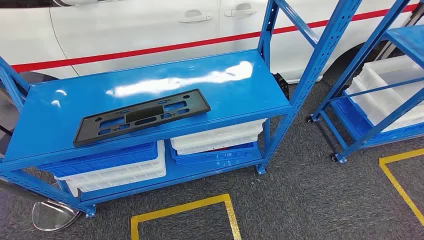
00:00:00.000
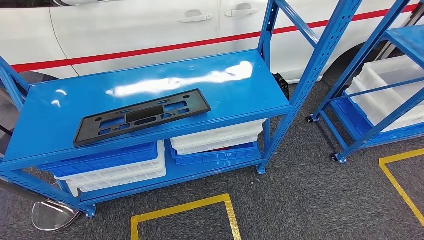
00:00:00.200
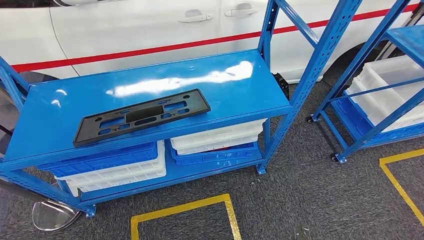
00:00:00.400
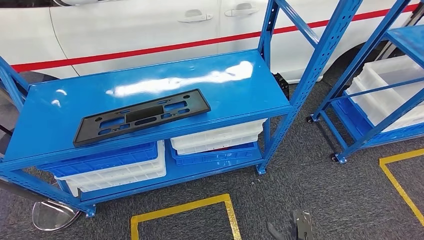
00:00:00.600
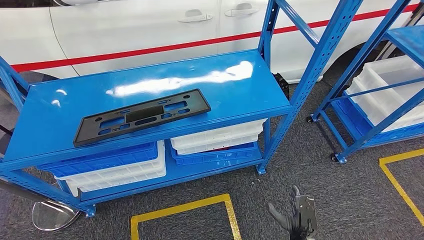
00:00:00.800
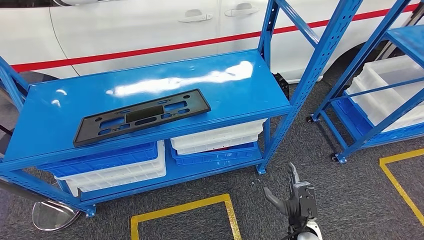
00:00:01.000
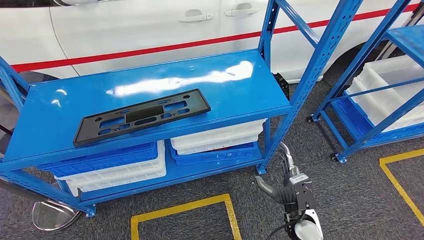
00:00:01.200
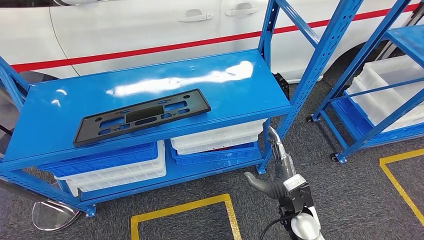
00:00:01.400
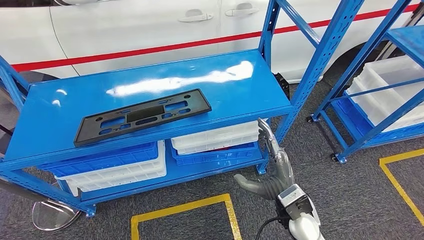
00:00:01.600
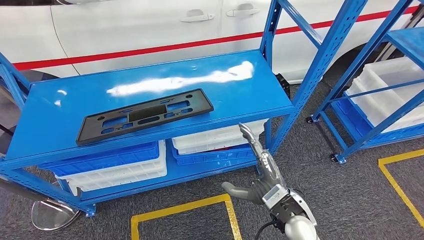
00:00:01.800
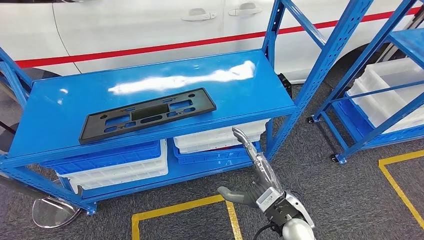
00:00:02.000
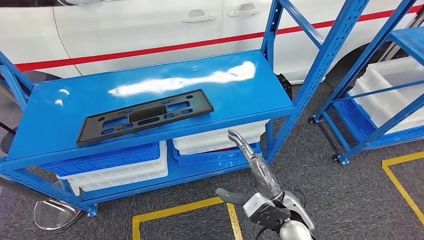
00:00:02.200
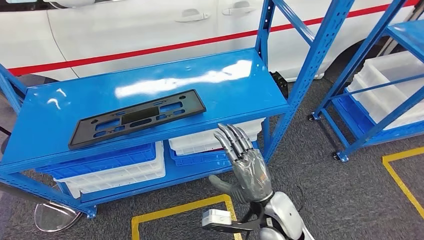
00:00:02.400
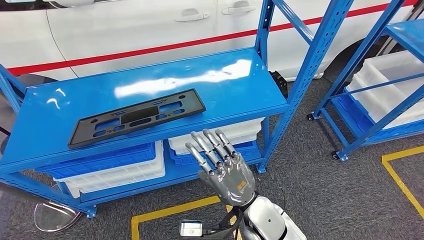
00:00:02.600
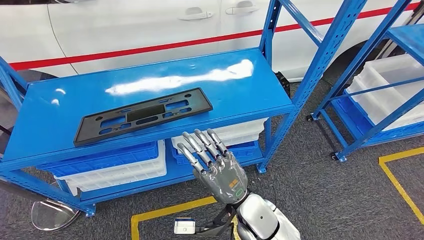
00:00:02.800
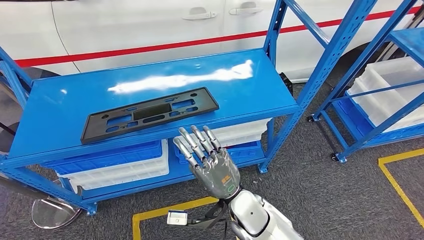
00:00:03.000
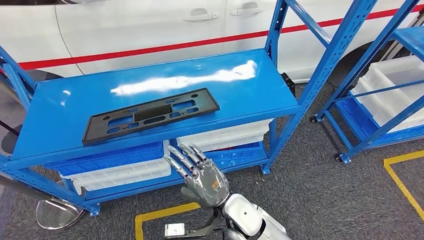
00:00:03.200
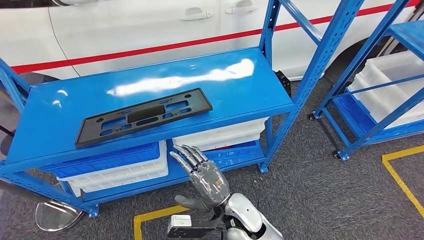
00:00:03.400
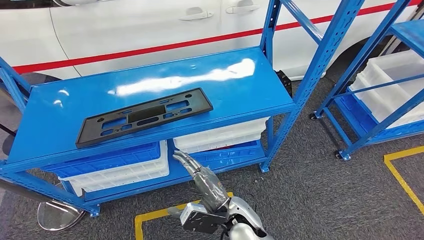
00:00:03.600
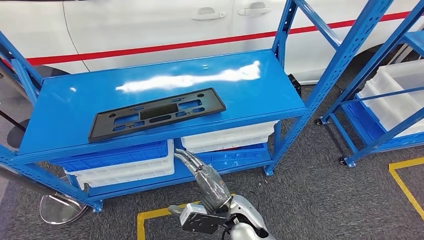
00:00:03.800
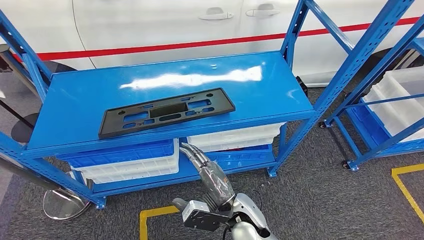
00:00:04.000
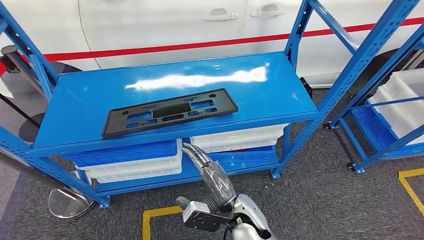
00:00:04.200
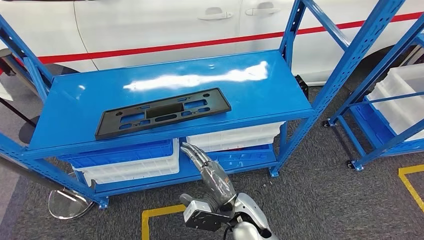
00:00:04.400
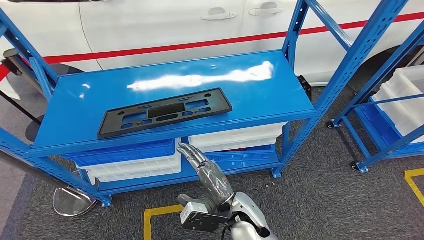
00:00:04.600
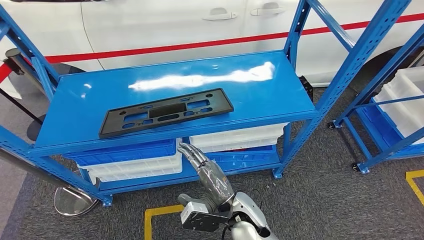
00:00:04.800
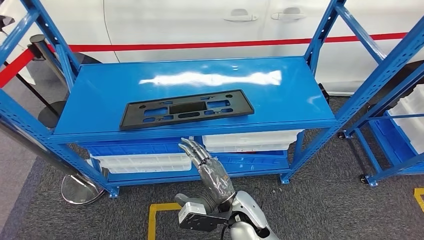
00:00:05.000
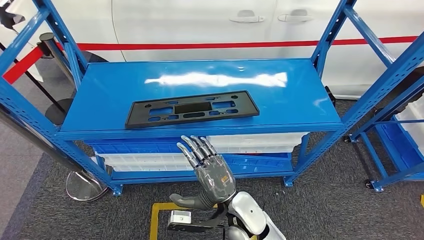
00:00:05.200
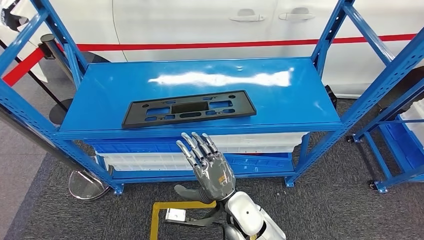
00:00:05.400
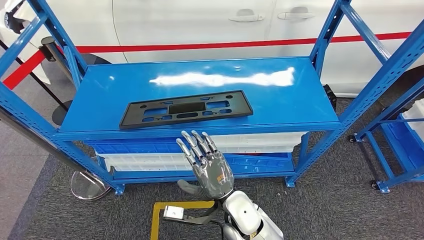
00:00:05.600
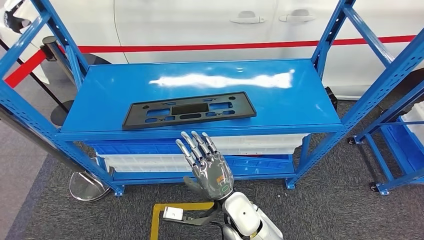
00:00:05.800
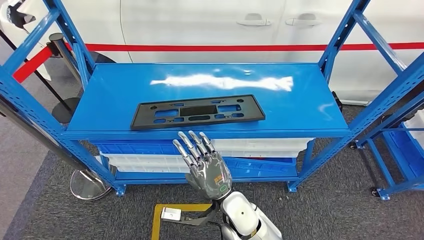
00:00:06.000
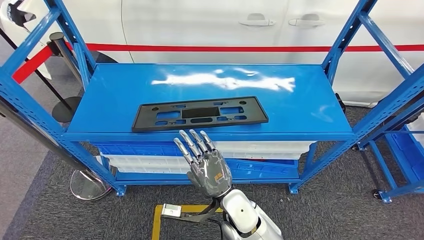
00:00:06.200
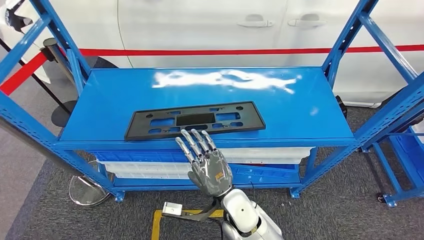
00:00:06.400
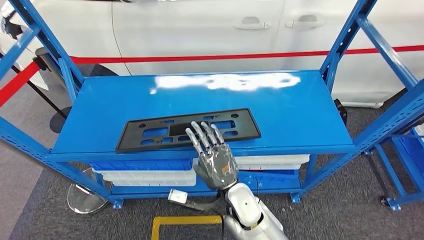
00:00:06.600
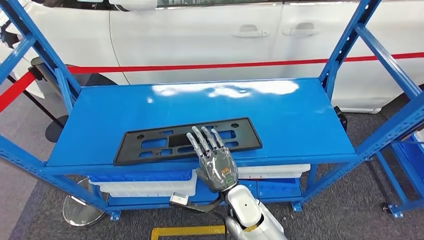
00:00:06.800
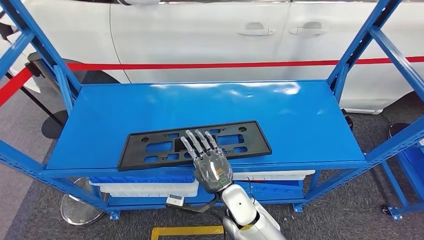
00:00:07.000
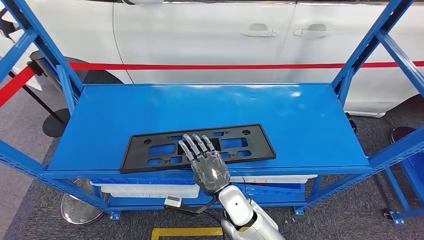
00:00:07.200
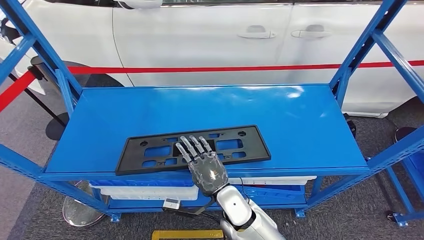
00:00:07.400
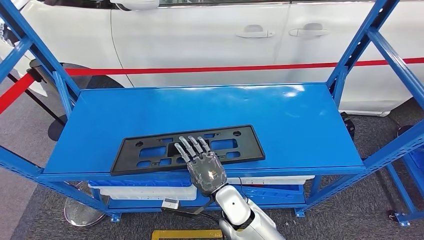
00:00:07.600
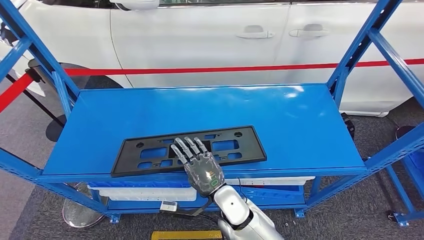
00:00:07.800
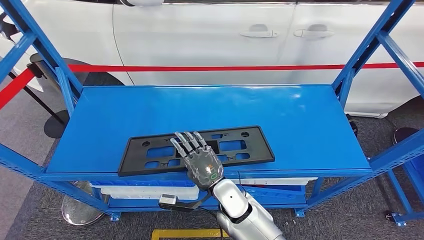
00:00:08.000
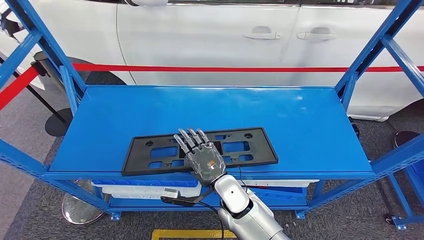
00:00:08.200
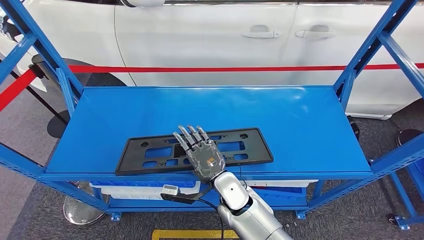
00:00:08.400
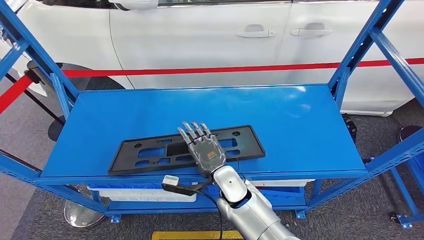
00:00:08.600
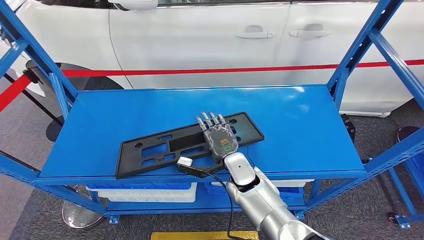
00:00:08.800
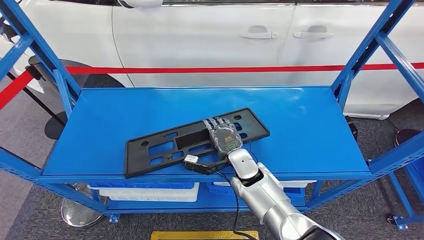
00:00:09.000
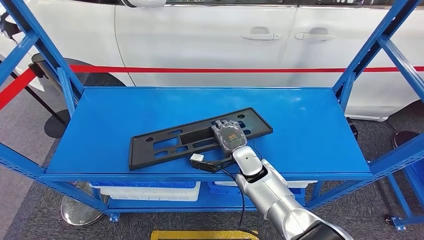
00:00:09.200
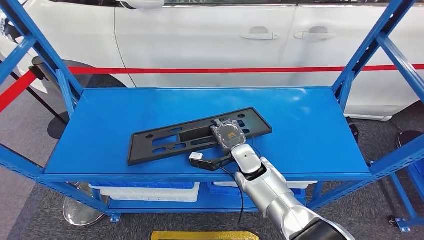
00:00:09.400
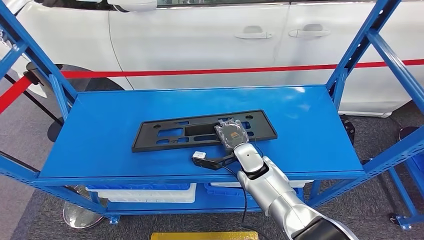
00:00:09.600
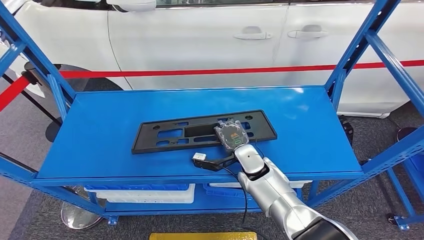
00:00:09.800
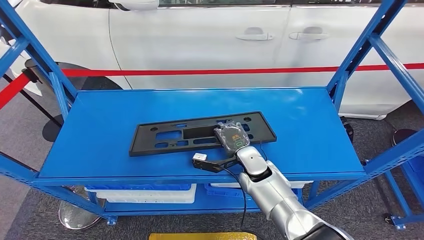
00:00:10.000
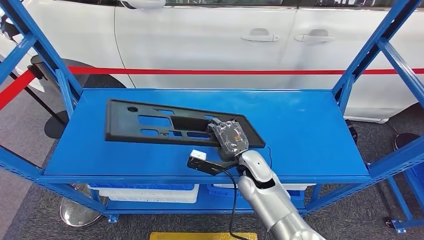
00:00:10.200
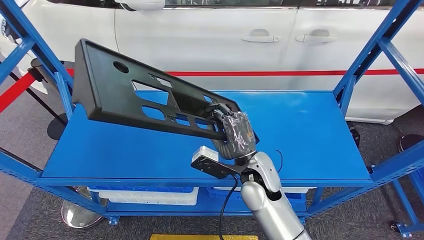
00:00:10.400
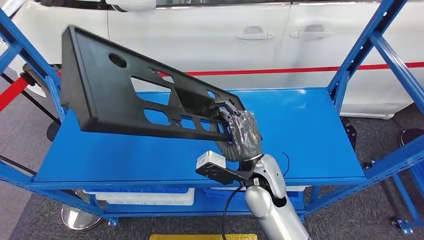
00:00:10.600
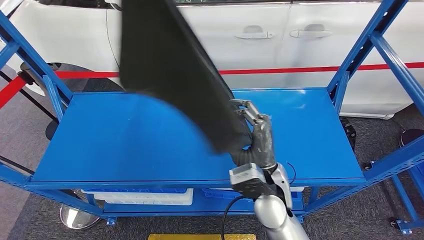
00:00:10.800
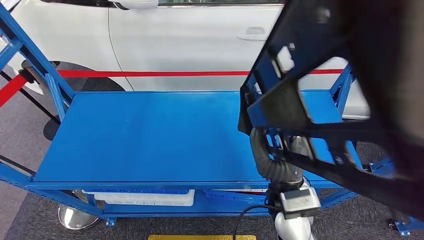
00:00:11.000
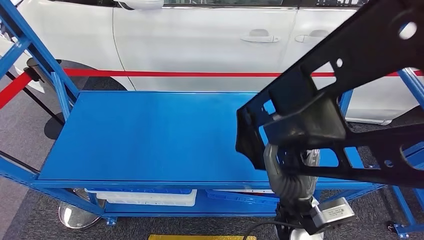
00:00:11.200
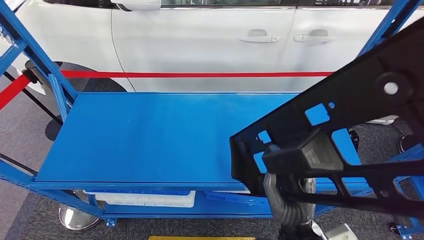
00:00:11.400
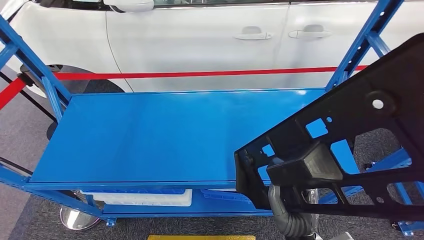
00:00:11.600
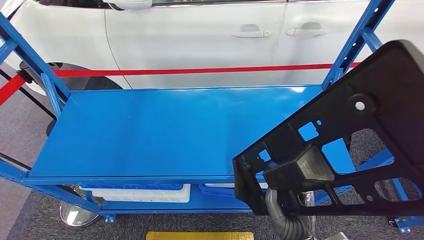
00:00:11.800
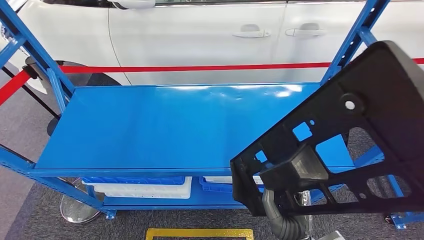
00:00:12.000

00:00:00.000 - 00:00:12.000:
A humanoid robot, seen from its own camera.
Step, 00:00:00.000 - 00:00:11.600: Pick up the large material from the shelf.

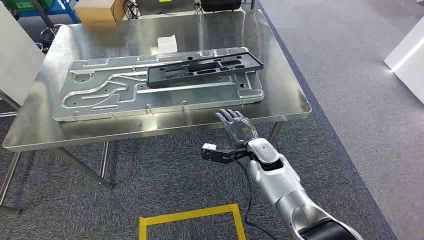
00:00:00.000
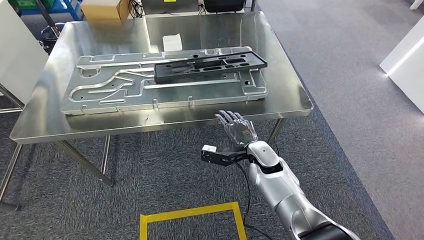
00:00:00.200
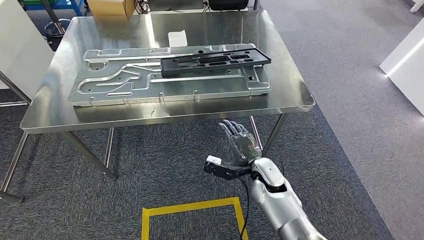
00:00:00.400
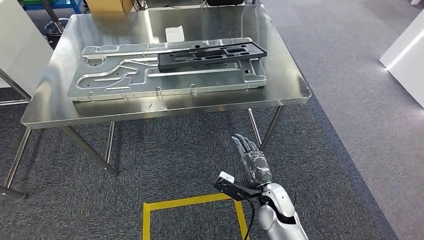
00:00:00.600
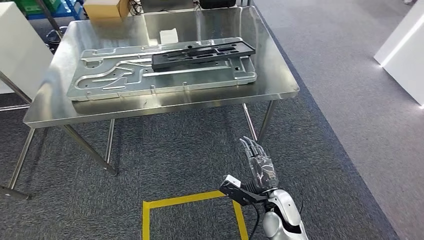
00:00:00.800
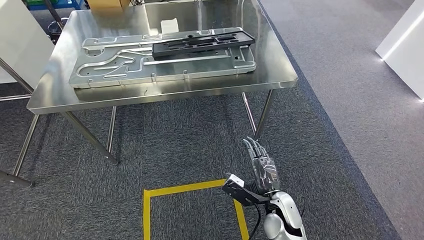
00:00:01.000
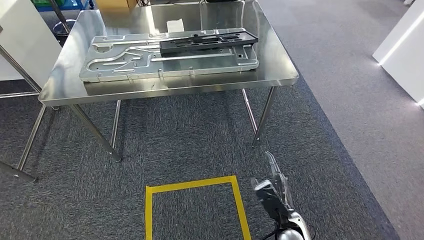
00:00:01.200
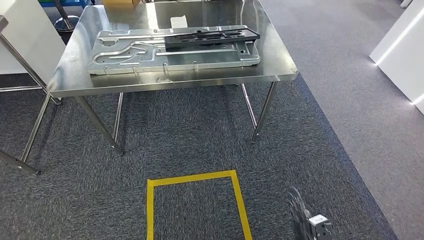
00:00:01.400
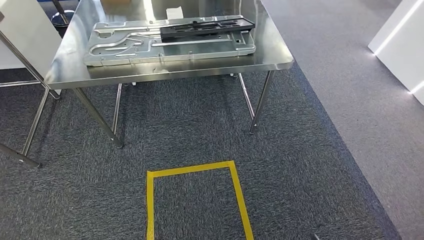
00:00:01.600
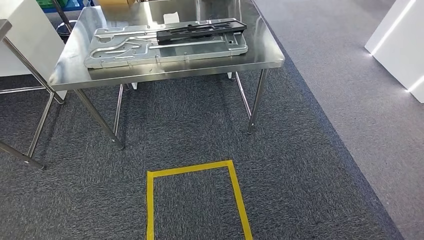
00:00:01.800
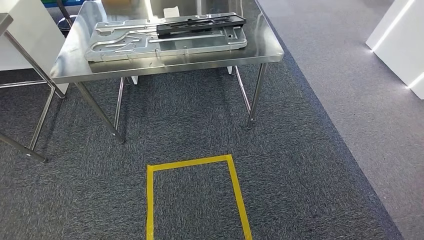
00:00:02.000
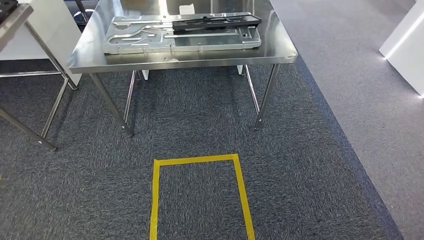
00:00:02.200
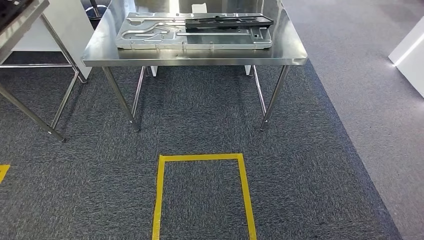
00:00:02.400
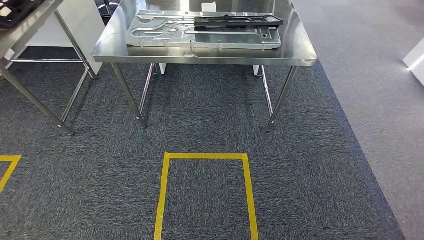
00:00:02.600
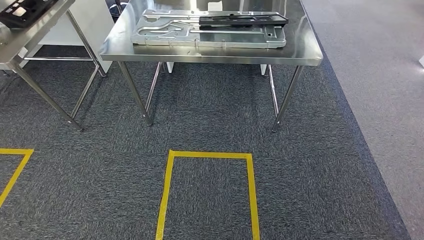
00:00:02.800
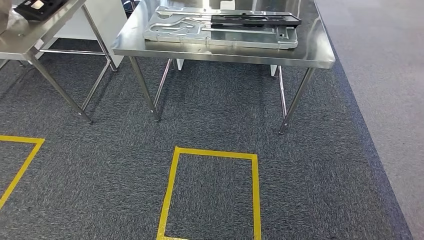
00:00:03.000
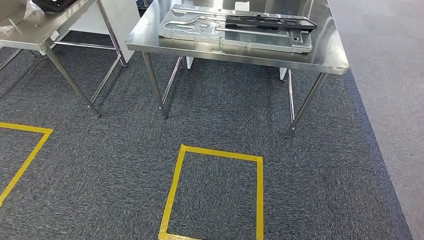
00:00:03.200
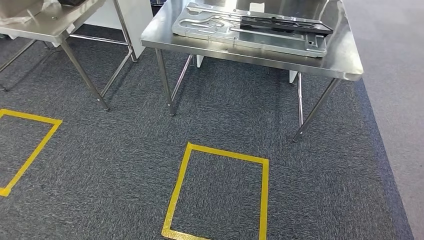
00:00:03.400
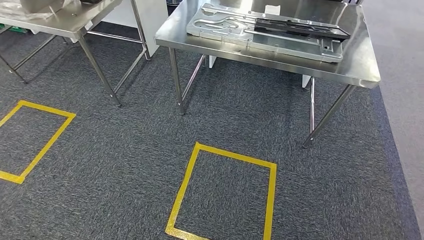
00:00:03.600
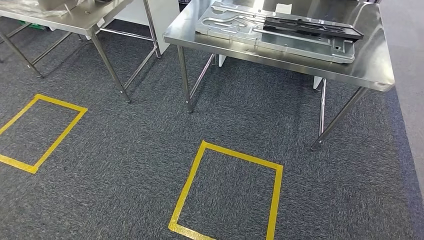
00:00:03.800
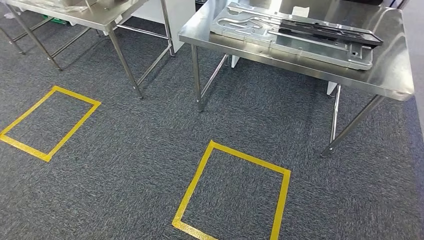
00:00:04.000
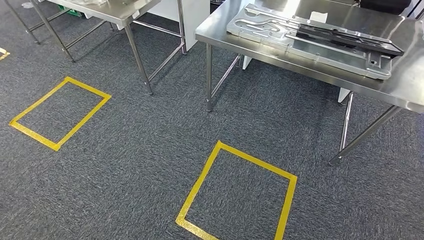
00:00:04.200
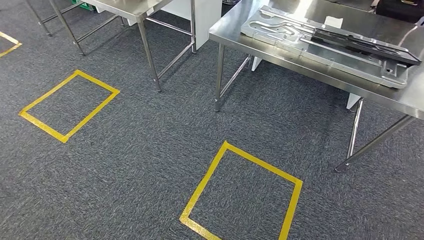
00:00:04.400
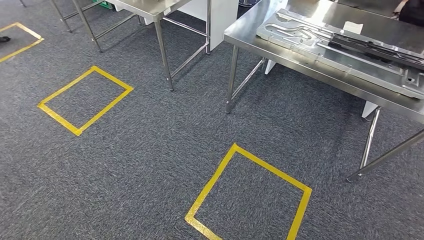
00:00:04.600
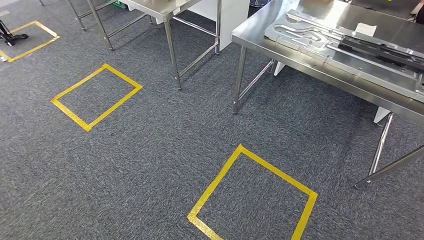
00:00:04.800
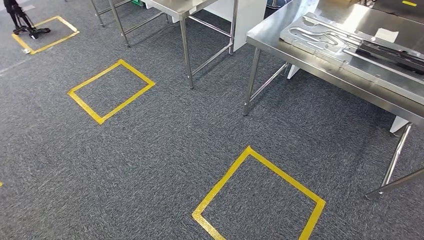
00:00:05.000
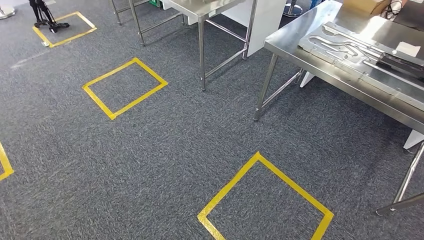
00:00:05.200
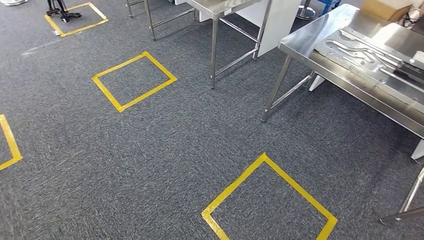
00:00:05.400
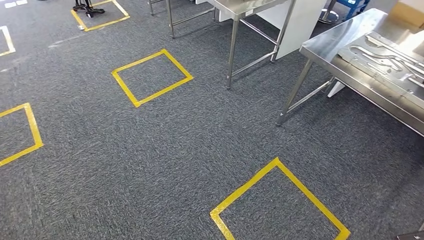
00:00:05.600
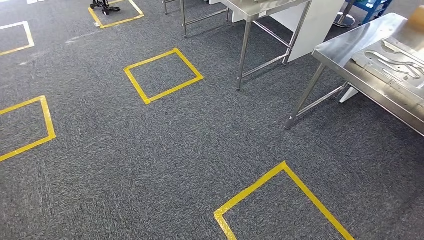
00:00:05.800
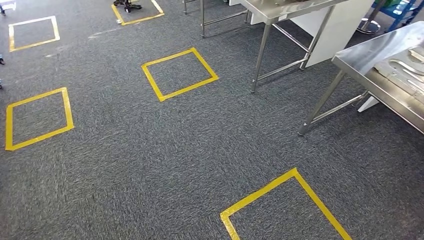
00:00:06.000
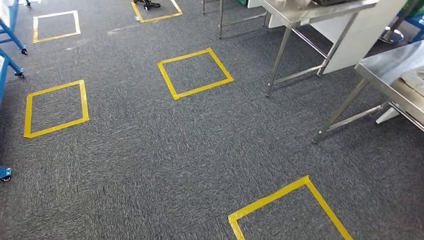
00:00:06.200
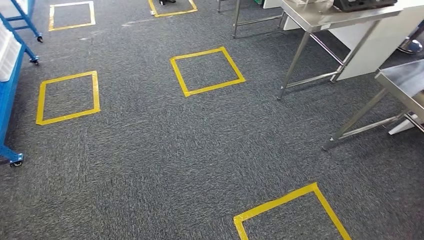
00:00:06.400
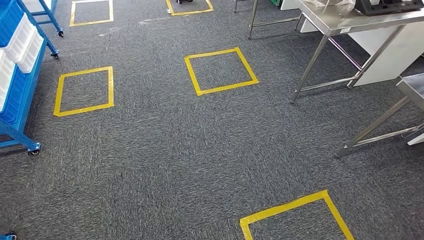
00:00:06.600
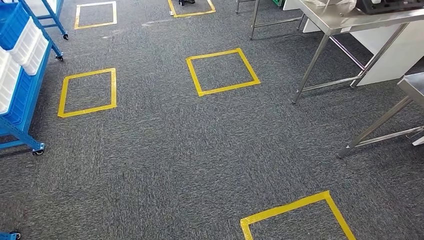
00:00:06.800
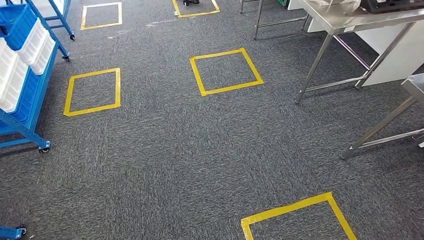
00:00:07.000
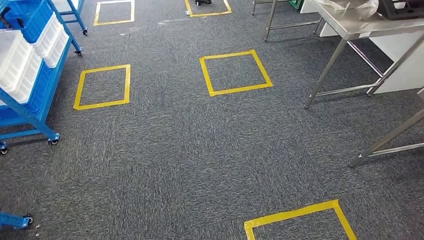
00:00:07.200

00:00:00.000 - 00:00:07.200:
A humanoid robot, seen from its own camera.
Step, 00:00:00.000 - 00:00:02.000: Insert the large material into the corresponding slot on the workbench.
